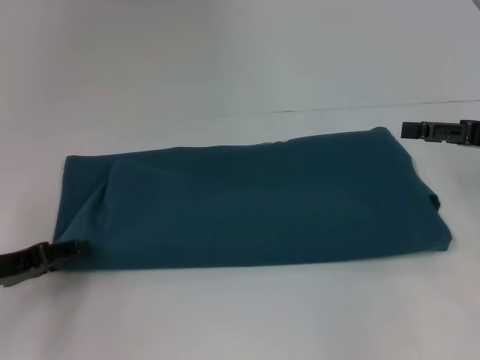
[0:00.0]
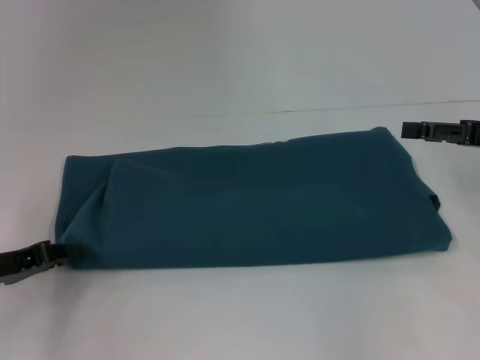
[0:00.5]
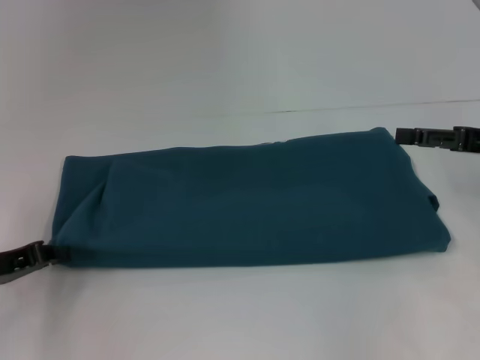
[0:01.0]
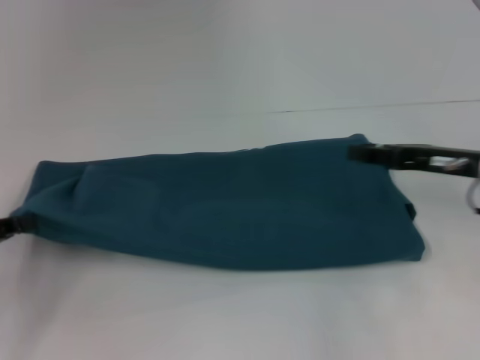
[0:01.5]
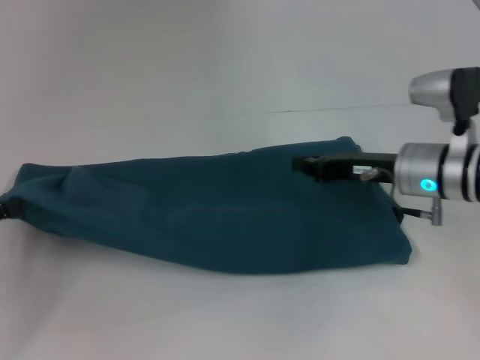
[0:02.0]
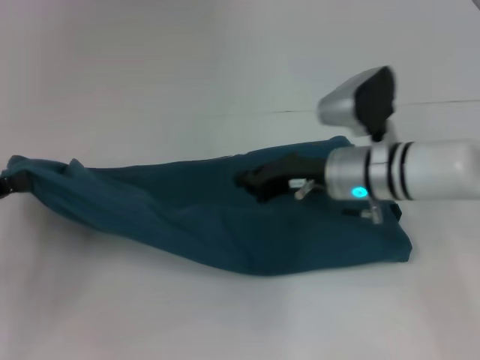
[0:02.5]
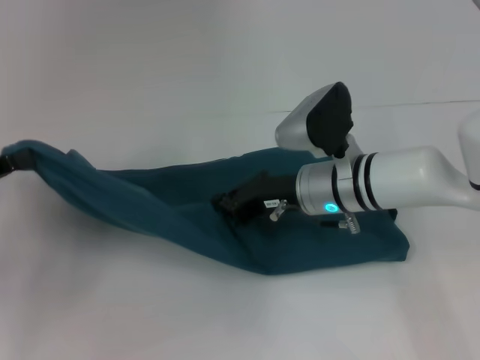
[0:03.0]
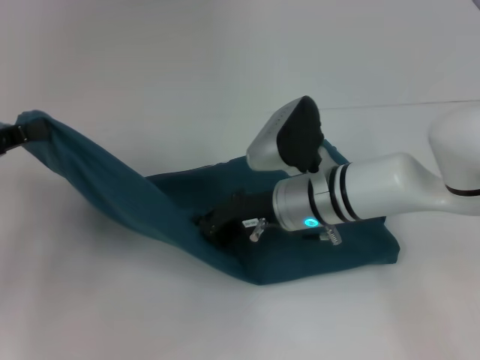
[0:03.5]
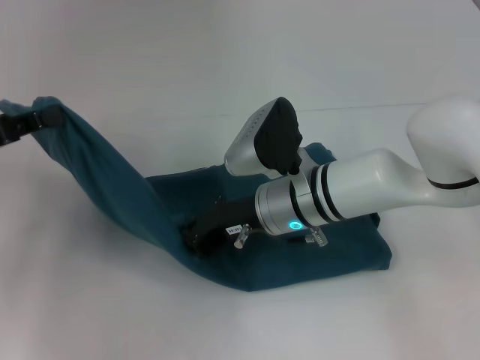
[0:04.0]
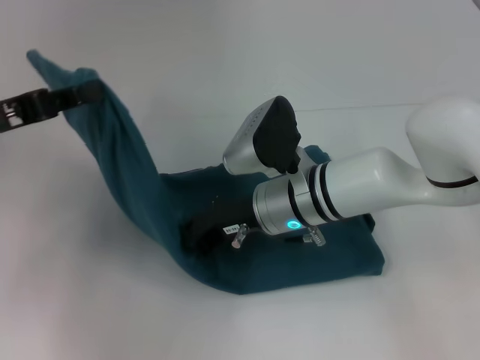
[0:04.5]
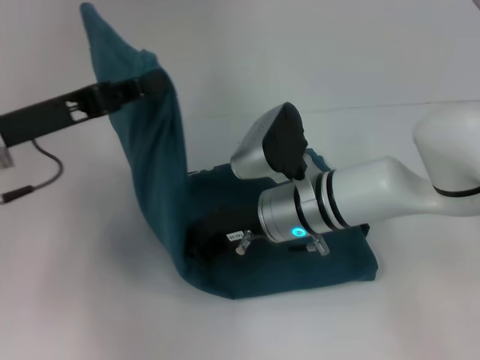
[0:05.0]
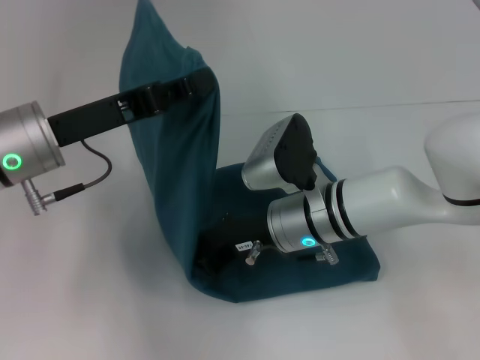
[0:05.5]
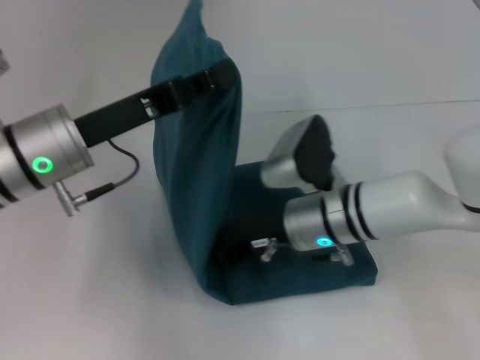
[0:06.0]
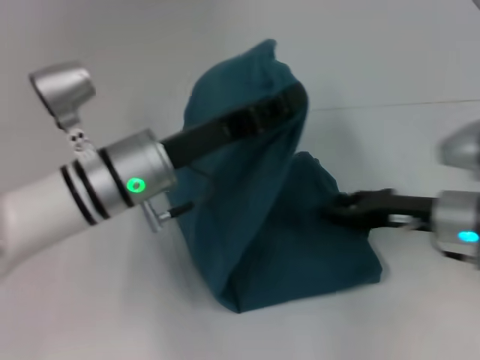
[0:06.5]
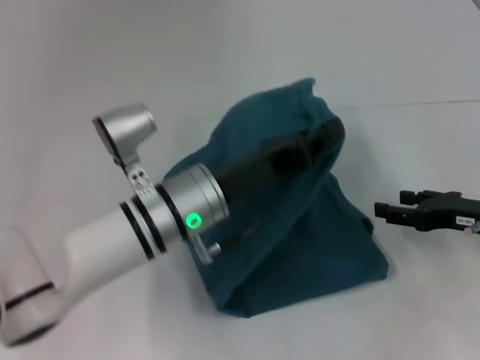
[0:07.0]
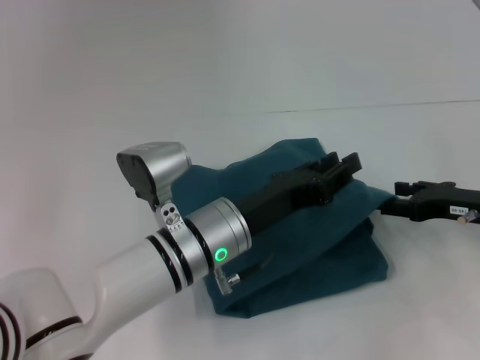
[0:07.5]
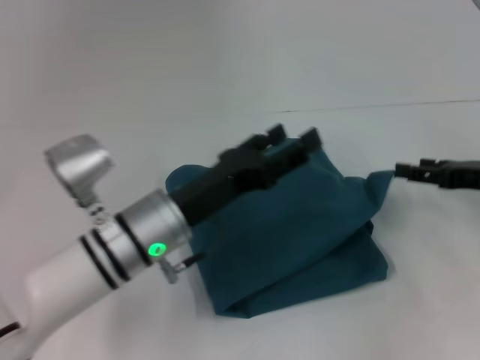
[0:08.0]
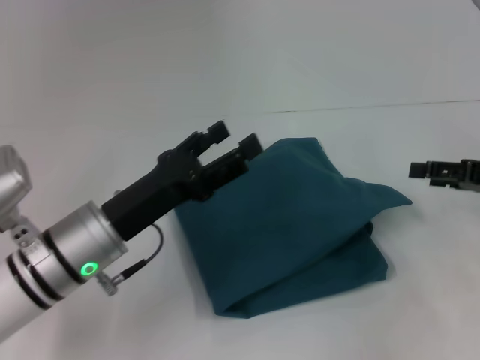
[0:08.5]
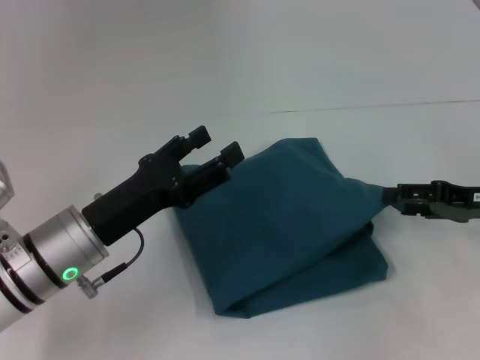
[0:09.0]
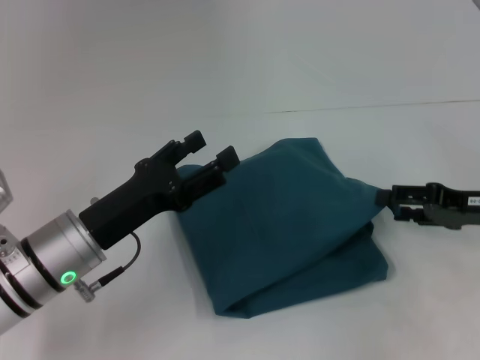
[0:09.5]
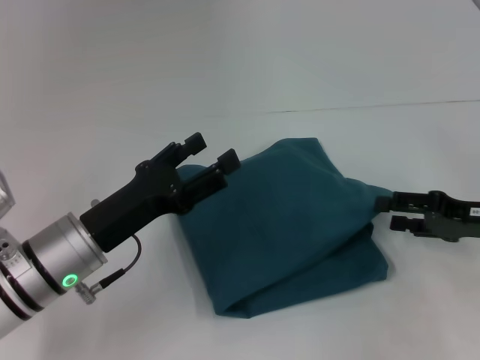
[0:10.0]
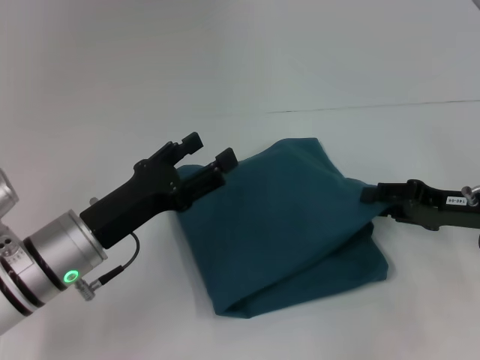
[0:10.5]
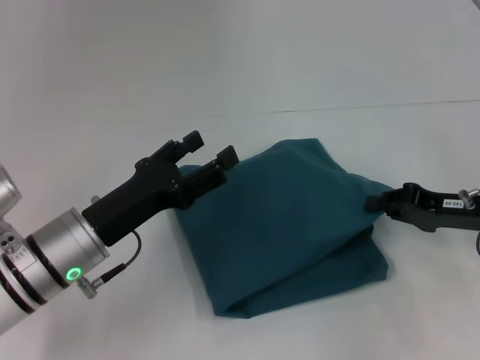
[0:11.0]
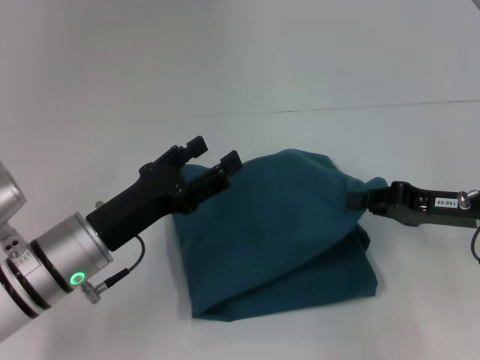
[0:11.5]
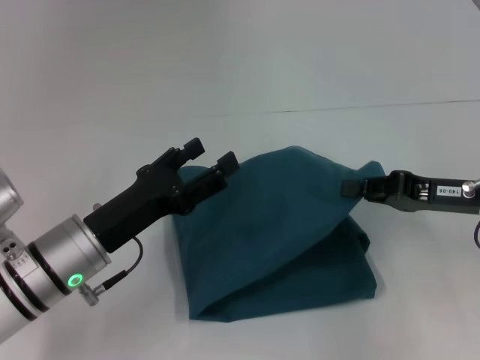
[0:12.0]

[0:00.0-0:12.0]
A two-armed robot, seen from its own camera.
Step, 0:00.0 to 0:06.0: Press the middle of the clothes with your right hand.
Step, 0:06.5 to 0:07.0: Fold the clothes to the left.
0:00.0 to 0:02.0: The right gripper moves to the left and downward, some 15 cm, and closes its fingers. Meanwhile the left gripper moves approximately 5 cm, and closes its fingers.
0:02.0 to 0:04.0: The right gripper shifts approximately 15 cm to the left. Meanwhile the left gripper moves upward, roughly 5 cm.
0:04.0 to 0:06.0: The left gripper moves to the right, some 15 cm.
0:06.0 to 0:08.0: The left gripper travels downward and to the right by approximately 10 cm, and opens; the right gripper moves to the right, about 25 cm, and opens up.
0:08.0 to 0:10.0: The left gripper goes roughly 10 cm to the left.
0:10.0 to 0:12.0: The right gripper ends up approximately 5 cm from where it was, and closes up.

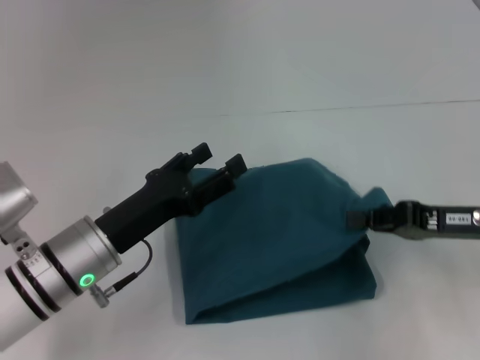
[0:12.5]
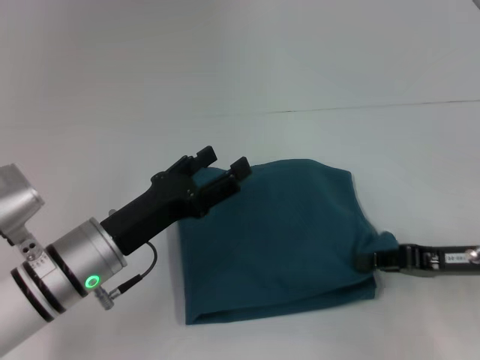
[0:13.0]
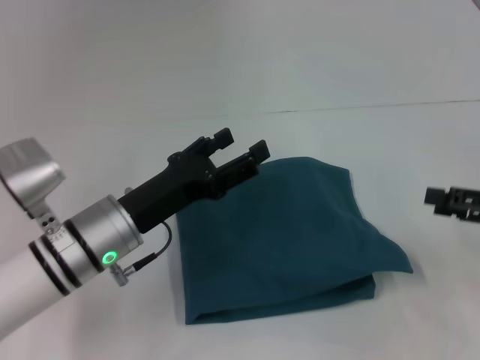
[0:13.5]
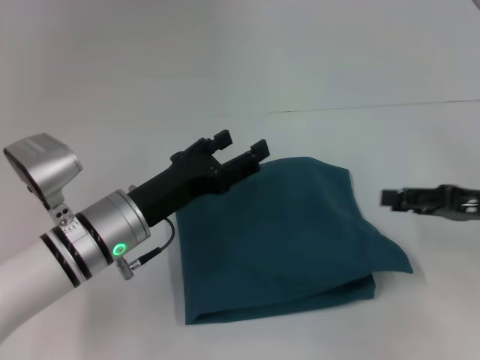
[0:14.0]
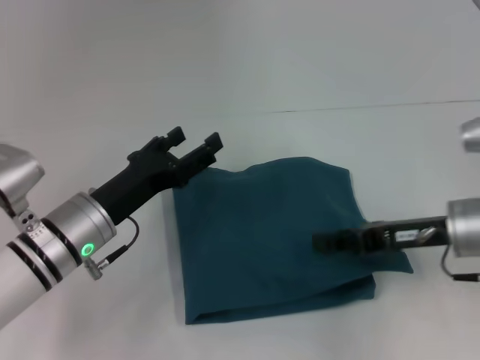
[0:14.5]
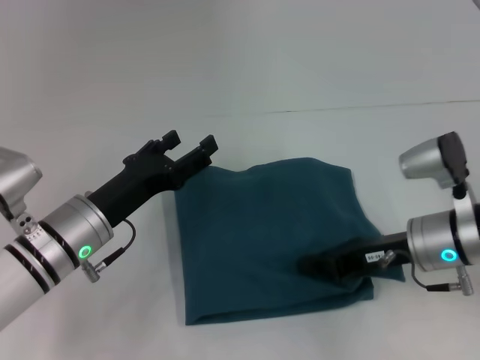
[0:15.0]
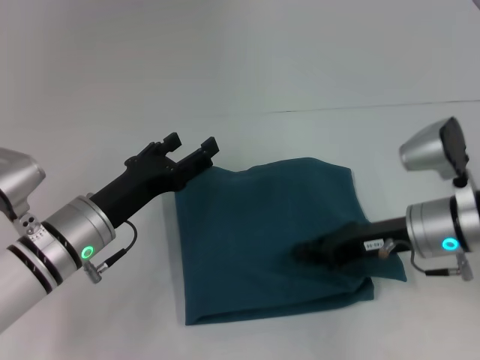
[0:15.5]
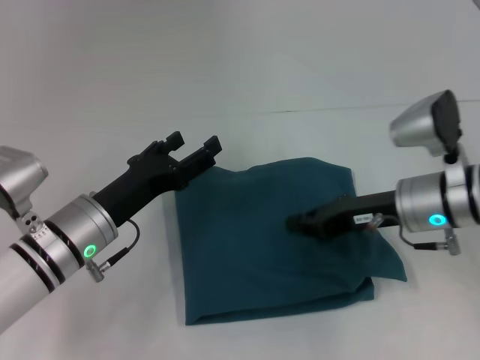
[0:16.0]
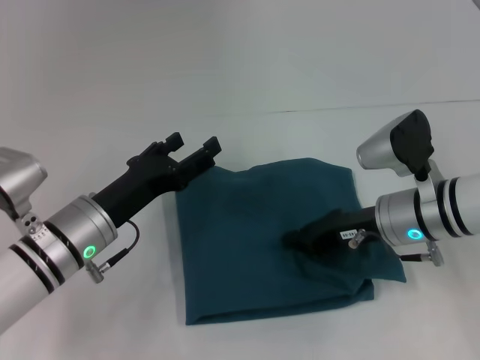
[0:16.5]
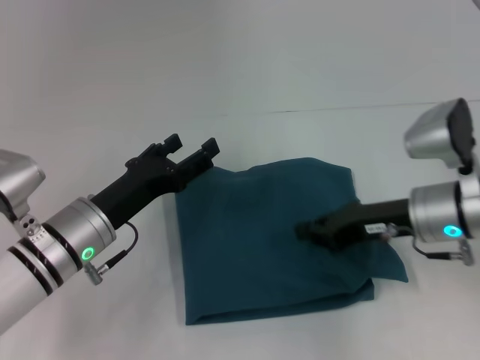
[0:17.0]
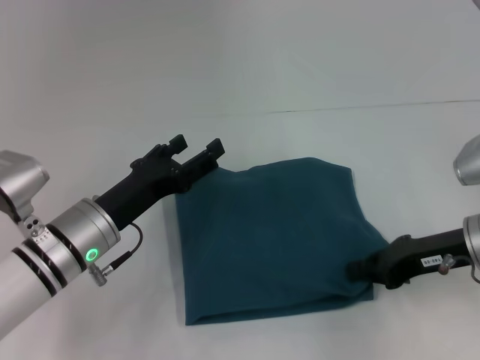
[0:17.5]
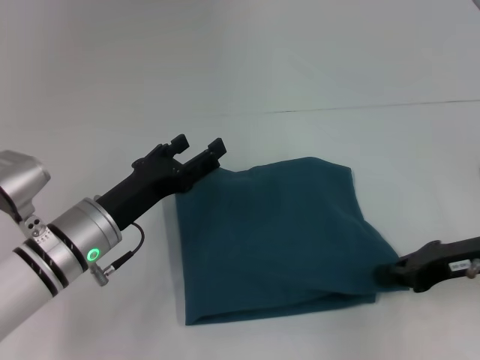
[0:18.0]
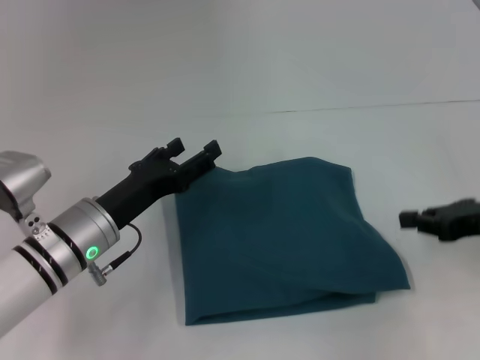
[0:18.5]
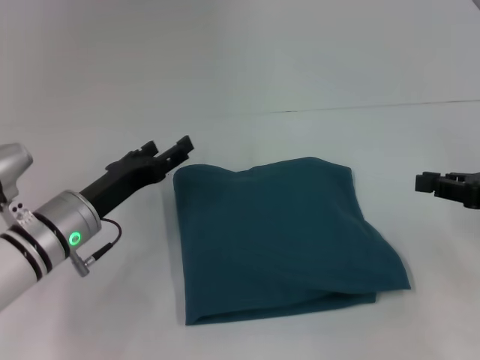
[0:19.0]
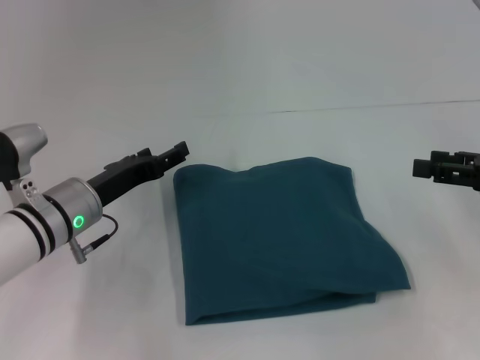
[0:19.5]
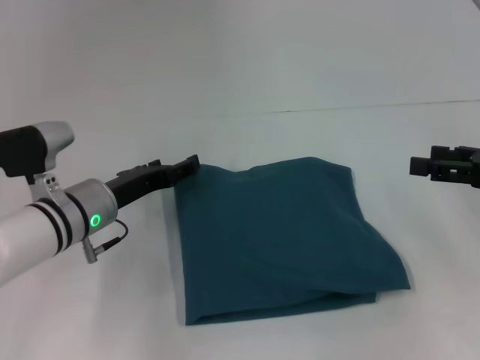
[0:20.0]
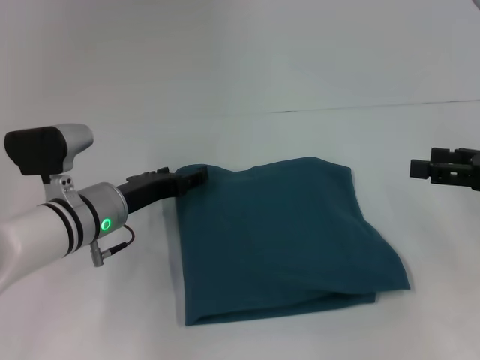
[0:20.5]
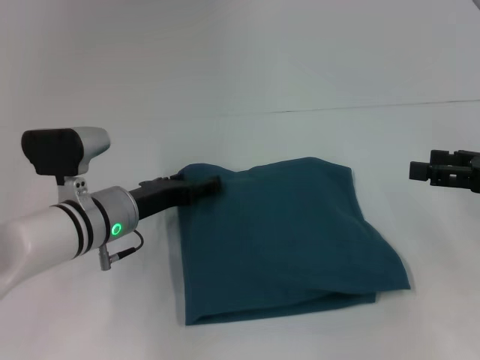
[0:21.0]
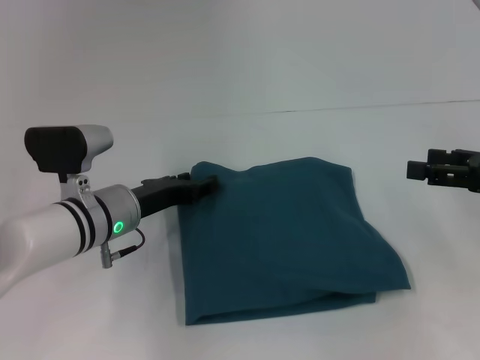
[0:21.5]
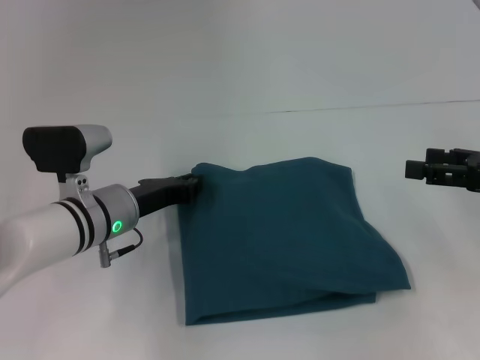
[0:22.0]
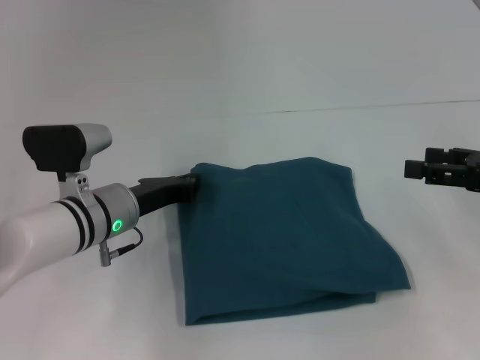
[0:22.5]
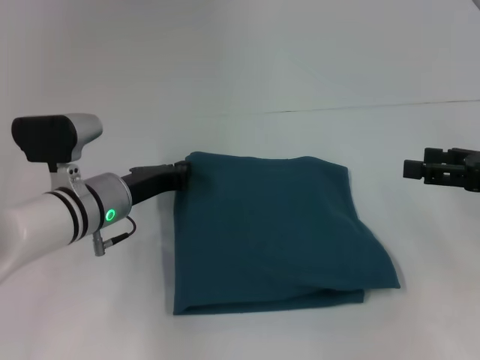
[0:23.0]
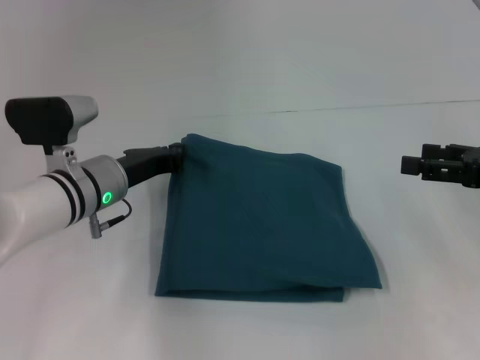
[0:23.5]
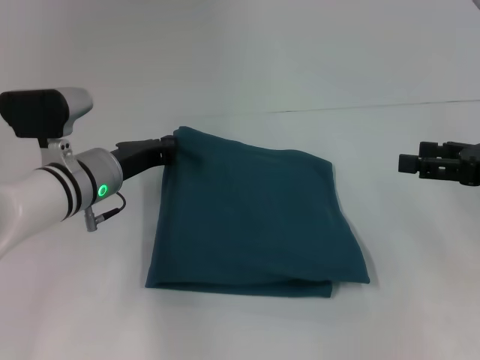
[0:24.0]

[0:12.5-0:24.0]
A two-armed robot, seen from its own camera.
0:12.5 to 0:14.5: The right gripper moves some 10 cm to the right and comes back, and opens, then closes again.
0:14.5 to 0:16.5: The right gripper travels to the left by about 5 cm.
0:16.5 to 0:18.5: The right gripper shifts approximately 15 cm to the right.
0:18.5 to 0:20.0: The right gripper opens up.
0:20.0 to 0:22.0: The left gripper closes.
0:22.0 to 0:24.0: The left gripper closes up.

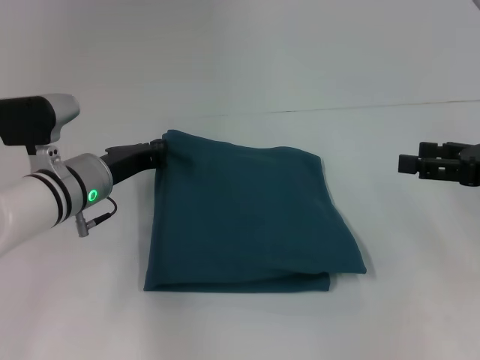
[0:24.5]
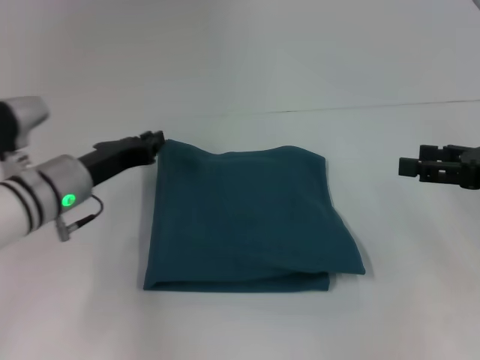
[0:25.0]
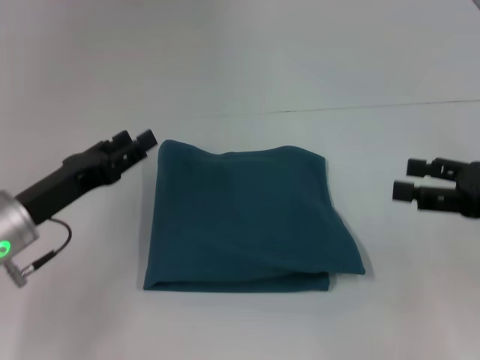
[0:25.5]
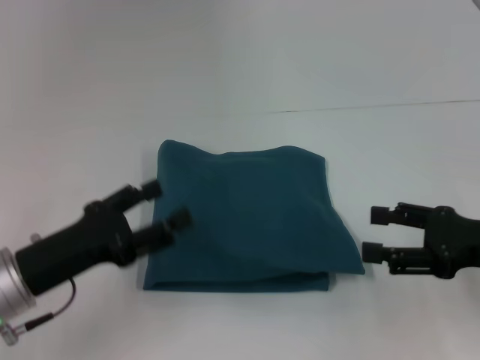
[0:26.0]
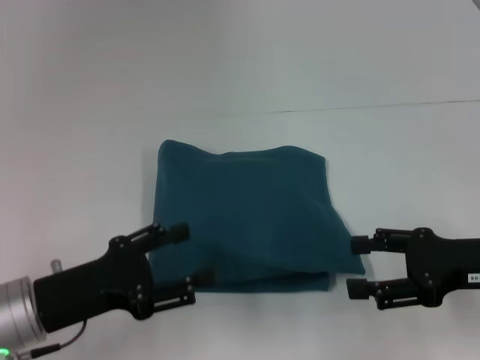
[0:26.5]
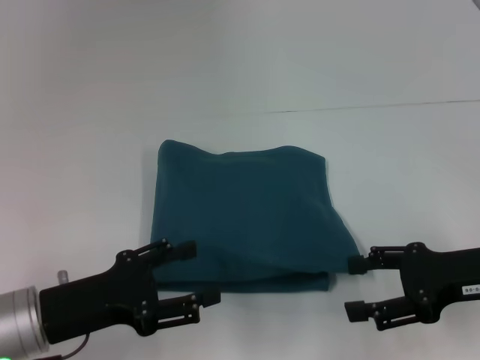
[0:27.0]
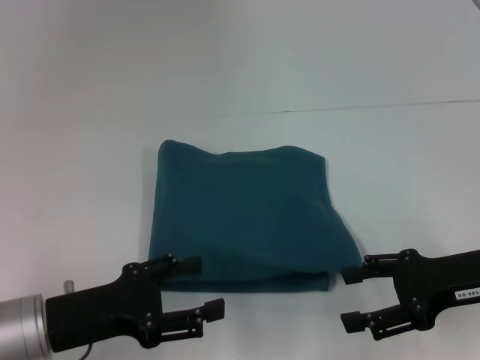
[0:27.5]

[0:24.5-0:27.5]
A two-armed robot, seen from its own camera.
0:24.5 to 0:26.0: The left gripper is displaced backward and to the left by some 15 cm, and opens its fingers. Meanwhile the right gripper shifts by roughly 5 cm.
